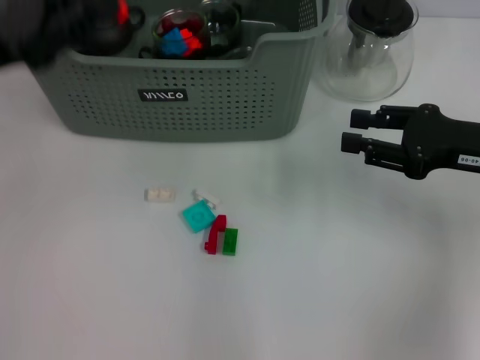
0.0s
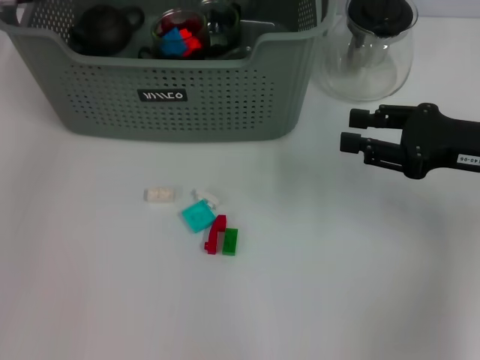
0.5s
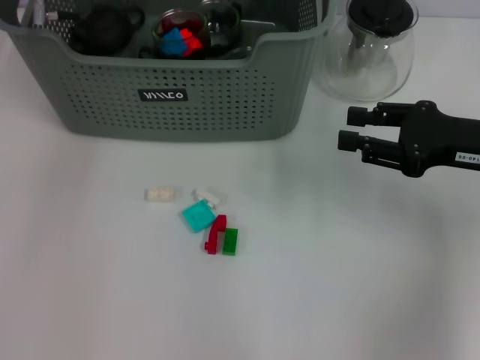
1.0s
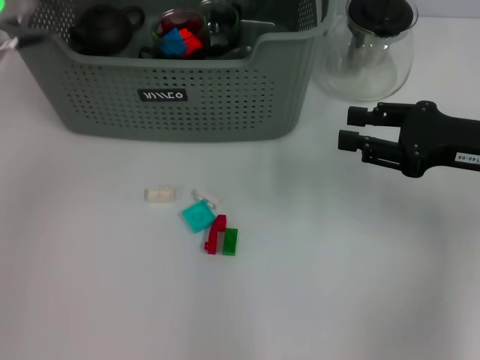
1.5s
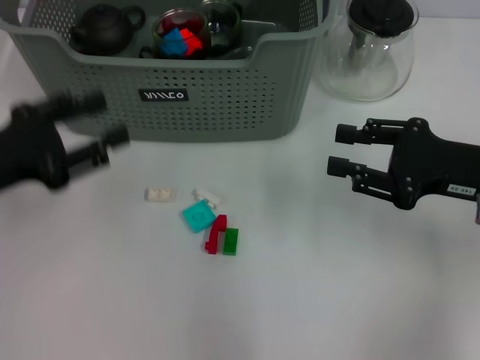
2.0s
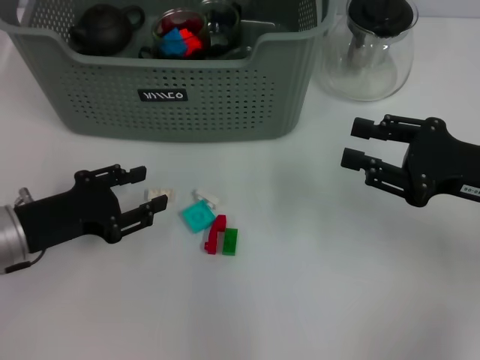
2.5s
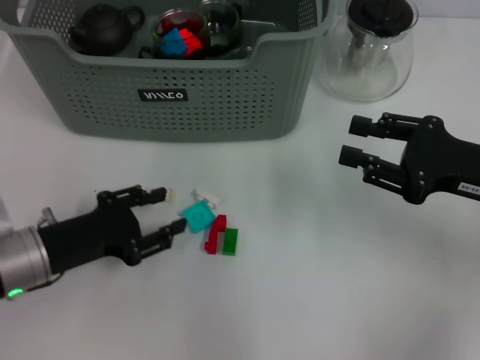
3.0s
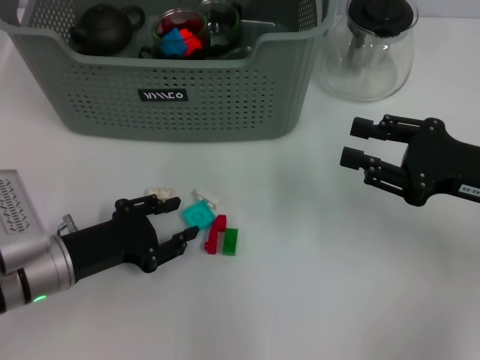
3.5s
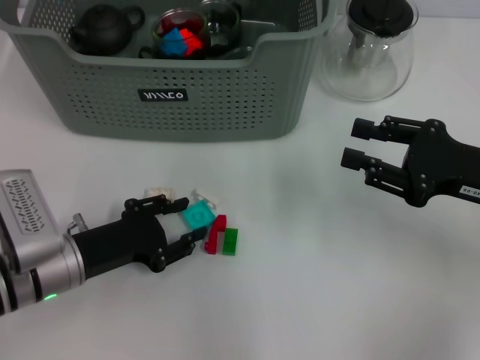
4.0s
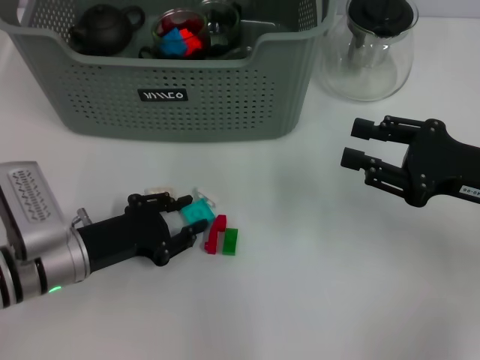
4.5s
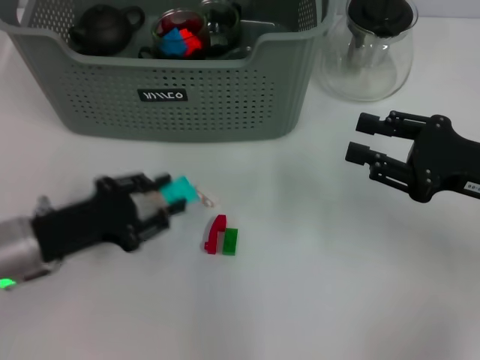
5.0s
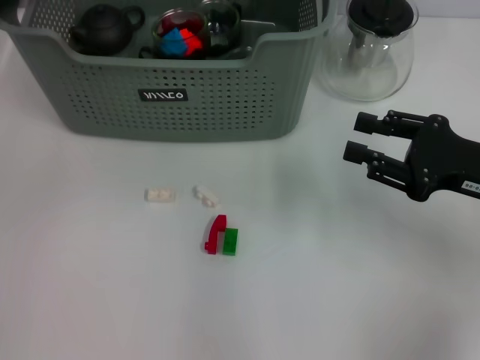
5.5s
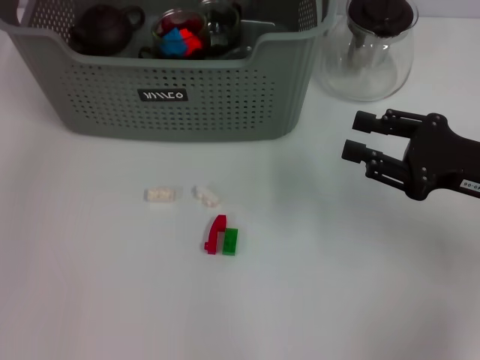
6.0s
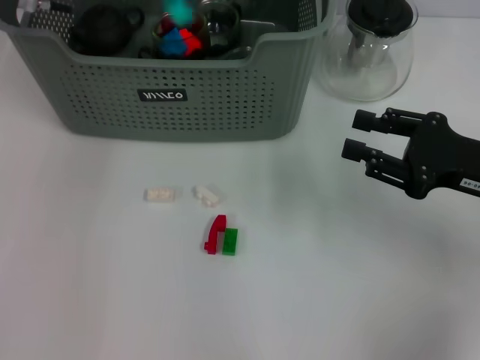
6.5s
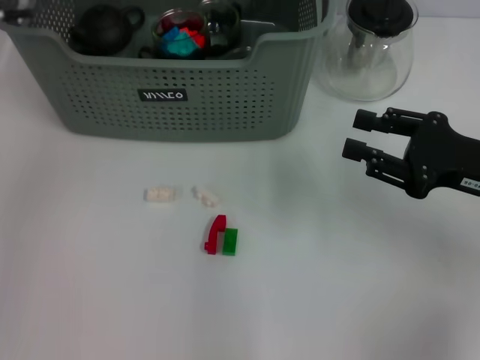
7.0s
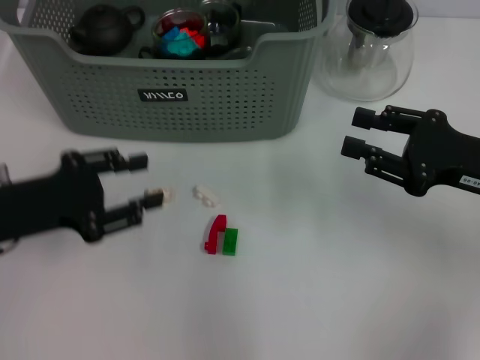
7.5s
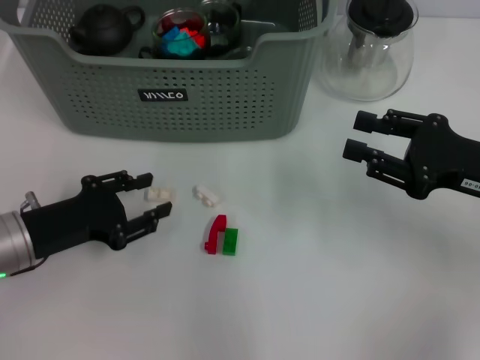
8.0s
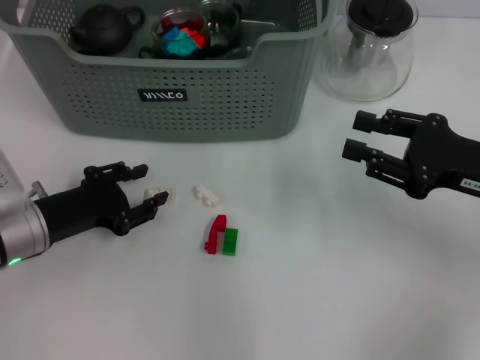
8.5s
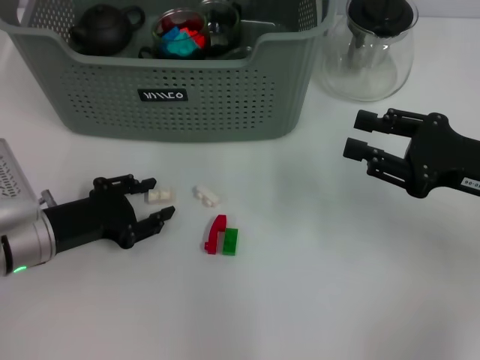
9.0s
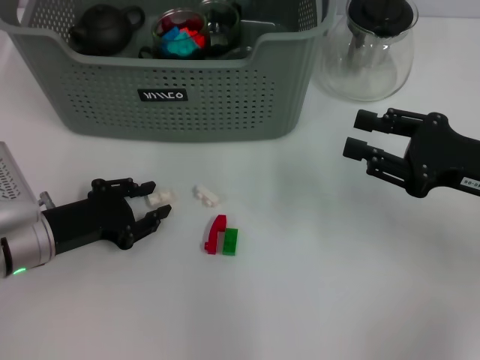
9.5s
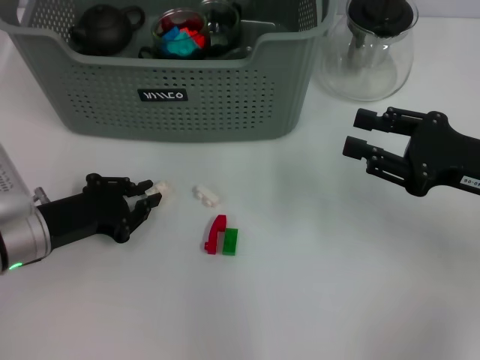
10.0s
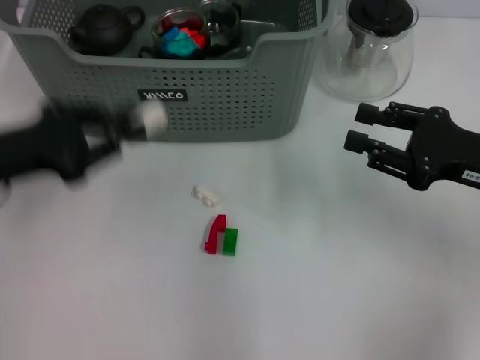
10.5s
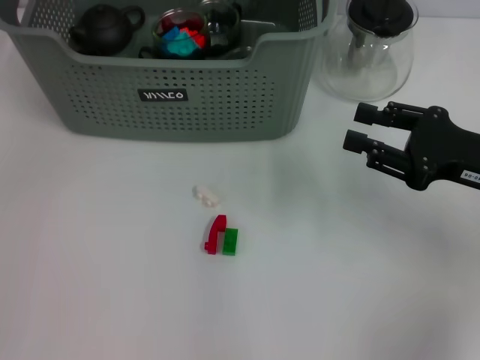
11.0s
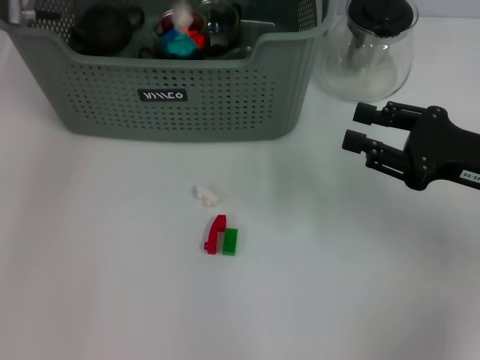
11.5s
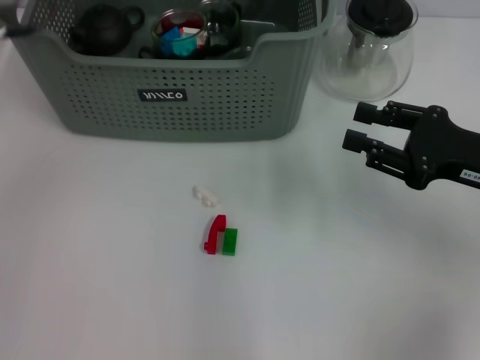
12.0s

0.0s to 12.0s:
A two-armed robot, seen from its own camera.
Task of the whole recording: pick up the teacup on the table and place it into the storage bin, pick up the block on the table and place it into the storage bin.
Step, 0.0s to 1.0s: Place the orange block in the storage box with left gripper.
Step, 1.5s to 4.5s: Grasp the light blue block with left gripper.
Step, 5.0s to 6.5s: Place the light blue block in the storage box with left gripper.
Step, 7.0s to 9.5s: Grasp the white block with left gripper.
Step, 10.0s to 11.5s: Place the white block in the storage box with left gripper.
0.0s to 2.0s: The left gripper heads downward, covering about 5 cm, reaches roughly 15 cm forward, then returns, and opens up.
2.0s to 4.0s: The left gripper moves downward and to the right, about 15 cm.
4.0s to 6.0s: The left gripper is displaced upward and forward by approximately 30 cm.
6.0s to 8.0s: The left gripper heads downward and backward, covering roughly 30 cm.
8.0s to 10.0s: The left gripper closes its fingers.
10.0s to 12.0s: The left gripper travels upward and forward by about 25 cm.

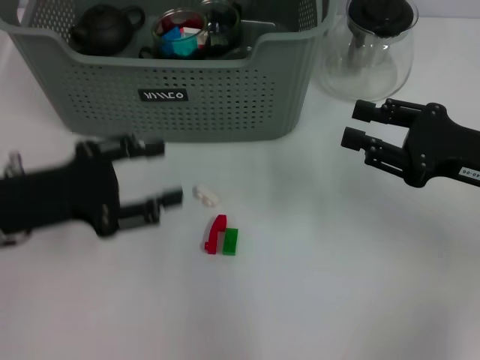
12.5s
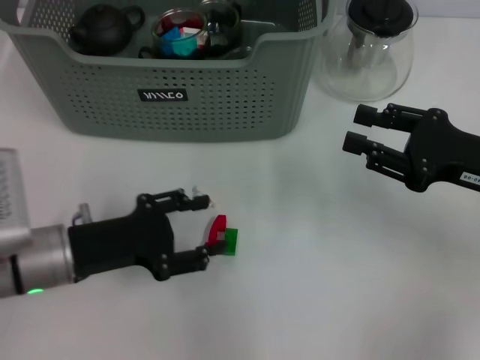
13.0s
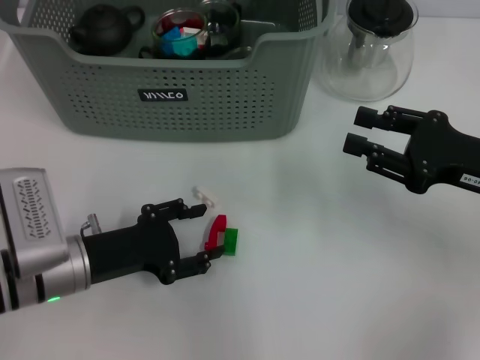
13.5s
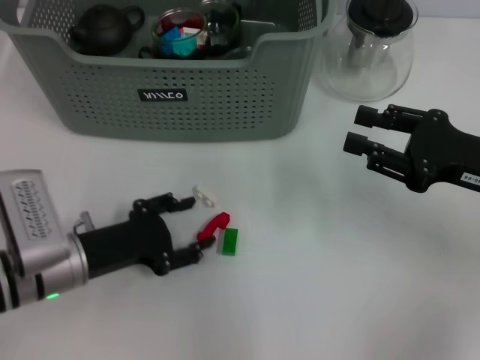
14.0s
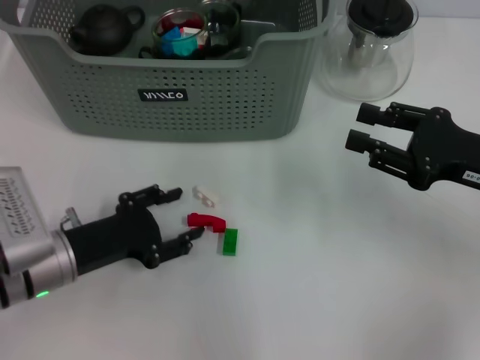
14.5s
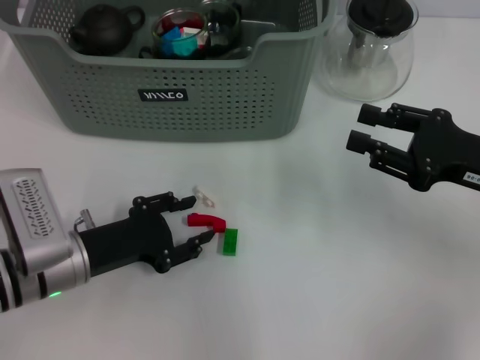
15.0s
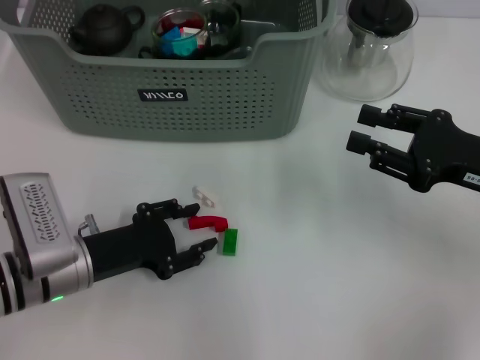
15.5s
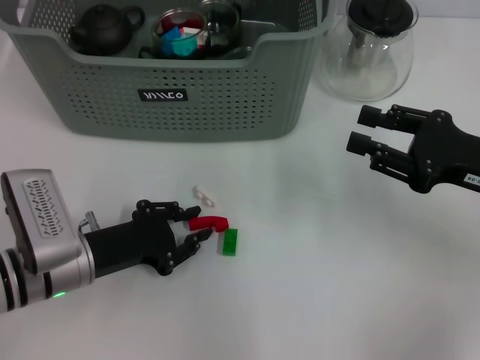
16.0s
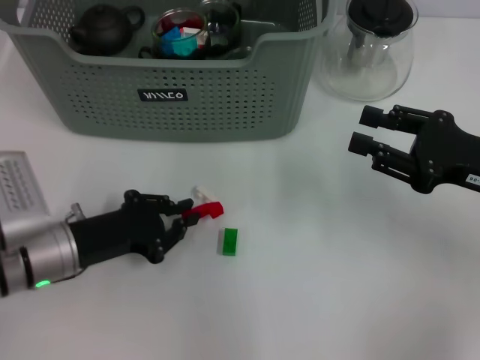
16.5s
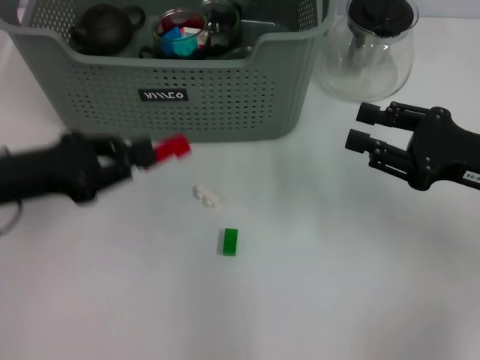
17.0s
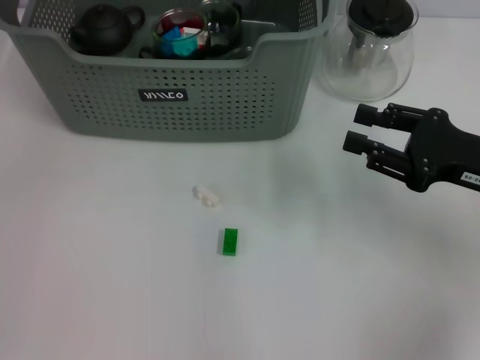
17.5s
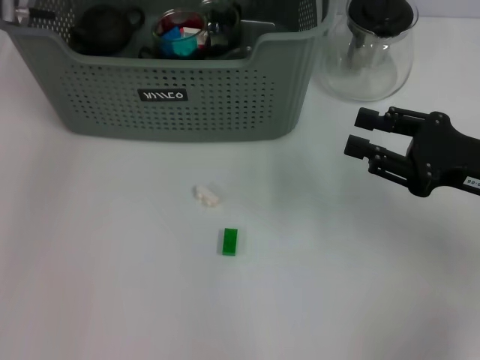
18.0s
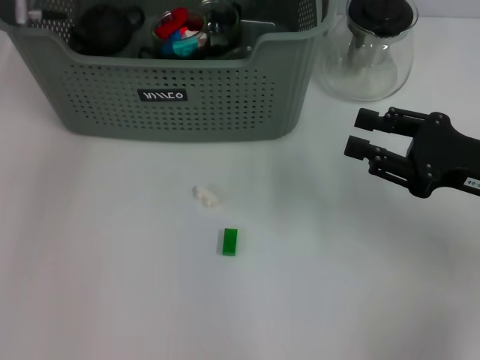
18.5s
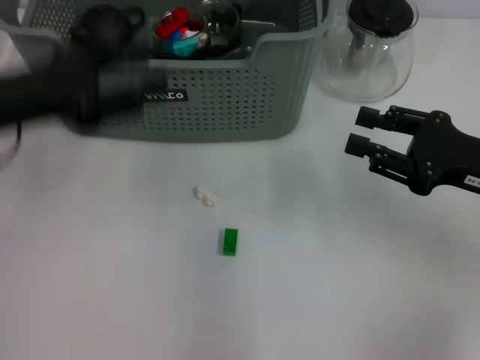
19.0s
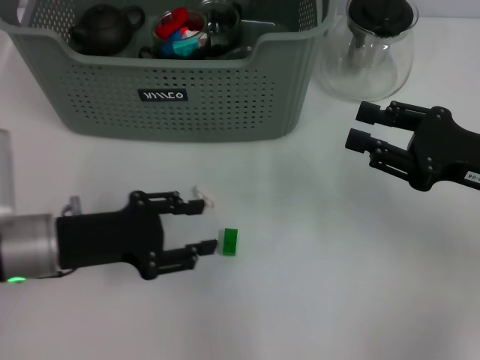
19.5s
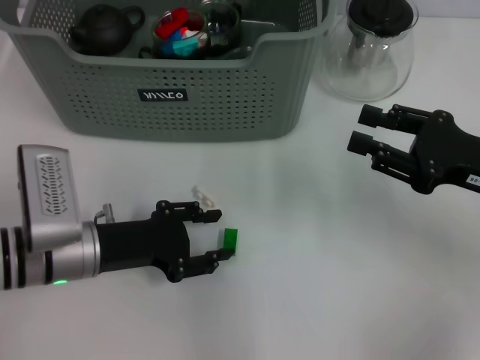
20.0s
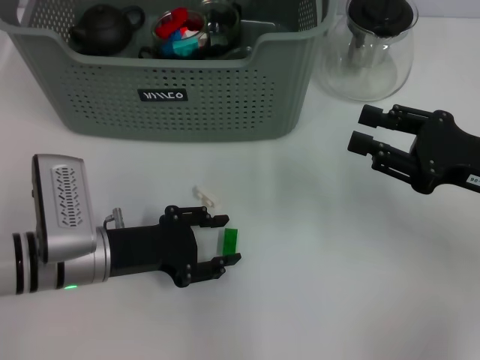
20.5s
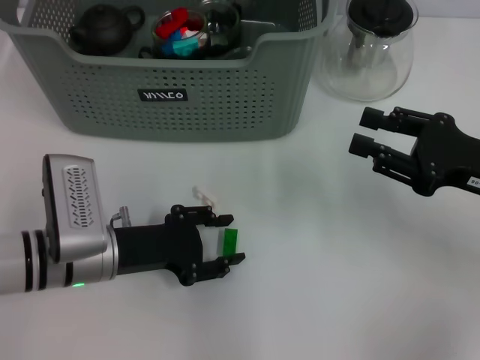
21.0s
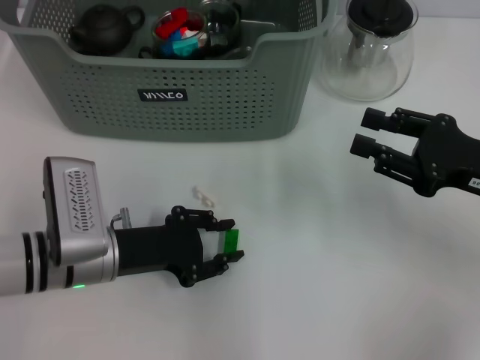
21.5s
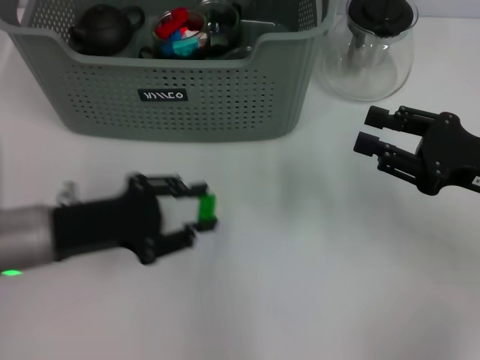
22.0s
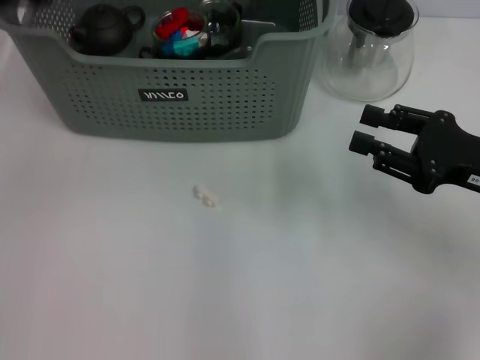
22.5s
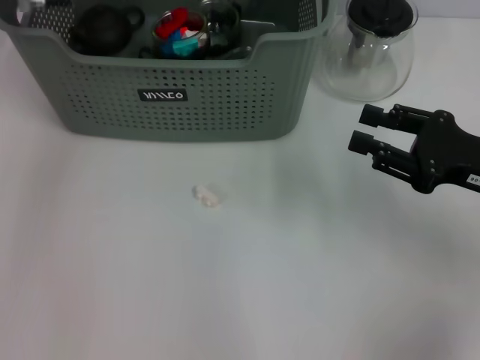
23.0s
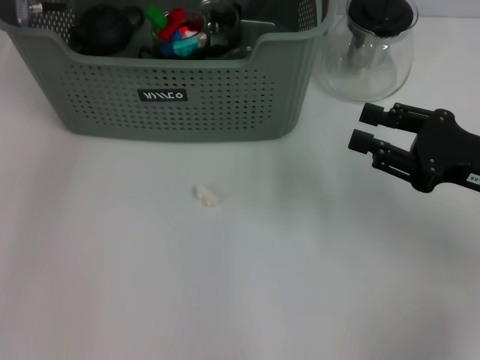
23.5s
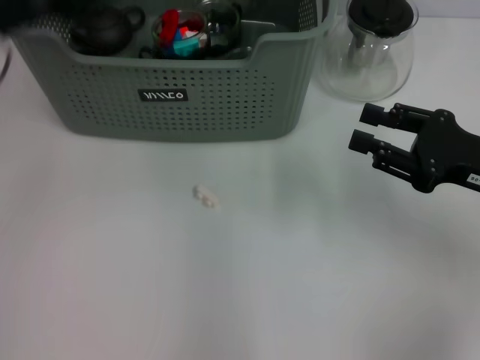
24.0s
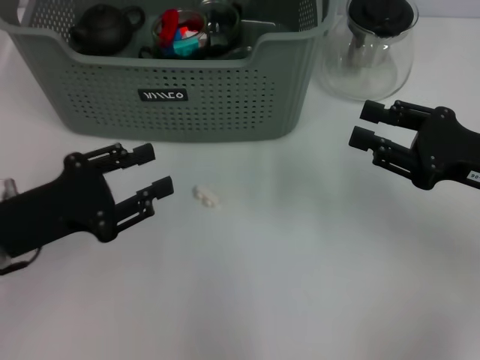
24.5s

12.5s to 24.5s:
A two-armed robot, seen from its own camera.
Task of the whole recording: pick up the teacup on the table and place it into the storage bin, pick up the block on the table and place it into the storage bin.
Step, 12.5s to 16.0s: Grasp the red block with left gripper.
Step, 16.5s to 18.0s: Place the red block in the storage box with left gripper.
Step, 18.5s to 21.0s: Grasp the green block with left gripper.
Step, 22.0s to 23.0s: Place the green block in the storage box with left gripper.
12.5s to 14.5s: The left gripper goes about 10 cm downward.
14.5s to 16.5s: The left gripper closes.
16.5s to 18.5s: The left gripper is displaced upward and forward by roughly 25 cm.
18.5s to 20.5s: The left gripper is displaced downward and backward by about 25 cm.
20.5s to 22.5s: The left gripper is displaced upward, to the left and forward by about 20 cm.
22.5s to 24.5s: The left gripper moves downward and backward, some 15 cm.

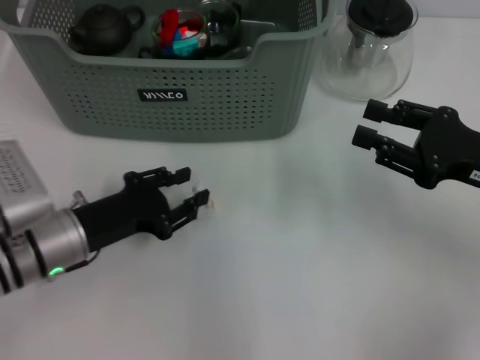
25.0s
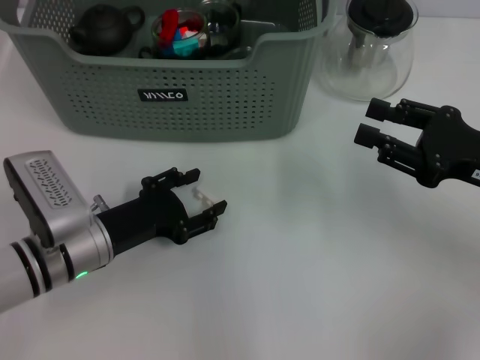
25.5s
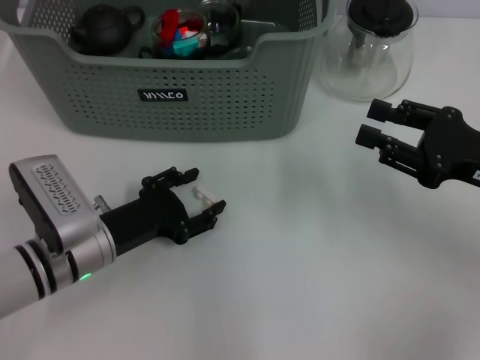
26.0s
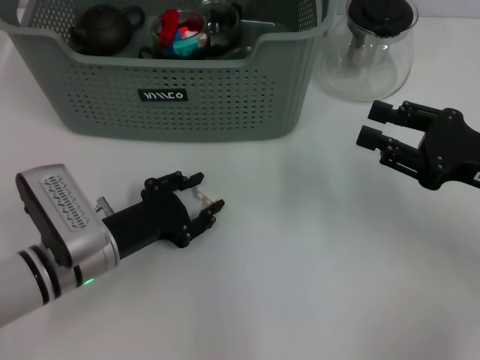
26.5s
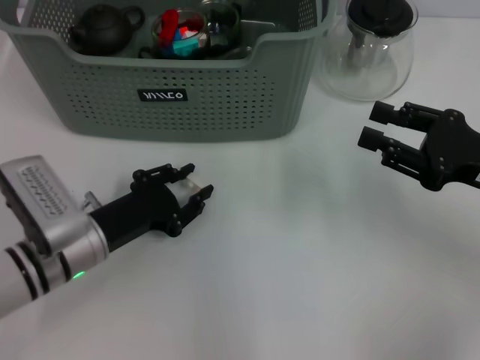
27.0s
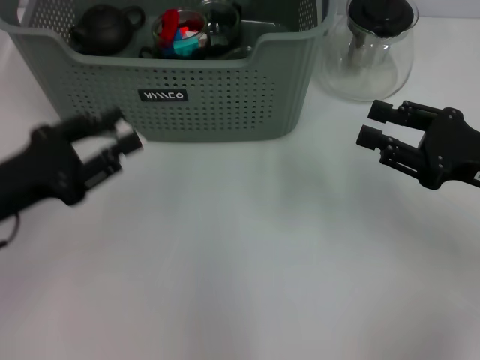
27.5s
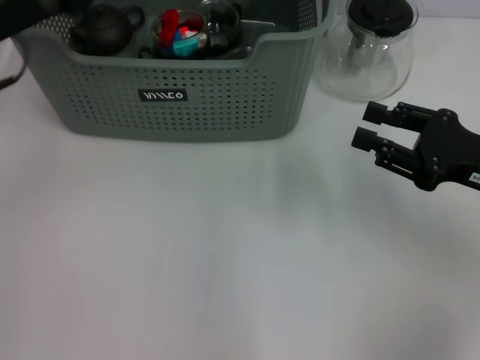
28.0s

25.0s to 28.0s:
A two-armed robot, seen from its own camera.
Task of the whole recording: pick up the teacup on the table and place it into the storage bin, pick up the block on the table and place it into the storage bin.
25.0s to 26.5s: The left gripper opens its fingers.
26.5s to 28.0s: The left gripper travels upward, forward and to the left by some 20 cm, and closes up.
